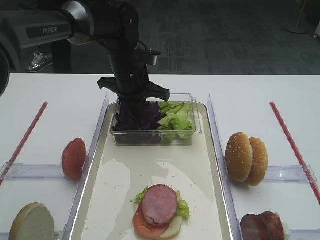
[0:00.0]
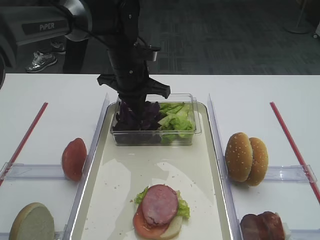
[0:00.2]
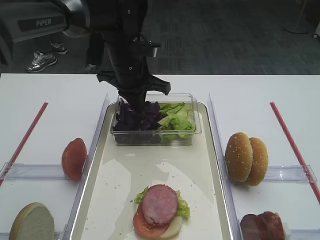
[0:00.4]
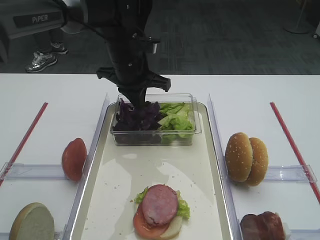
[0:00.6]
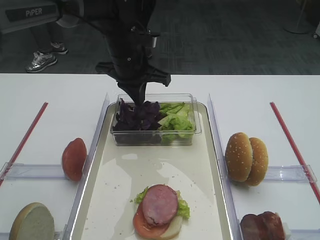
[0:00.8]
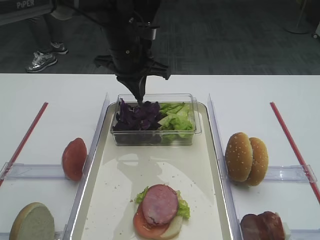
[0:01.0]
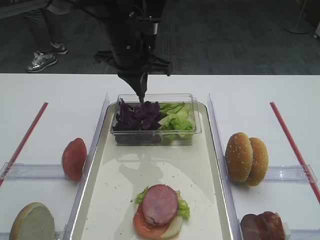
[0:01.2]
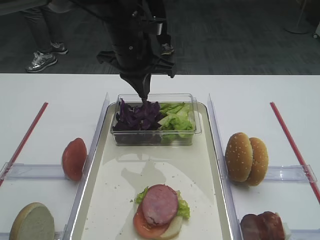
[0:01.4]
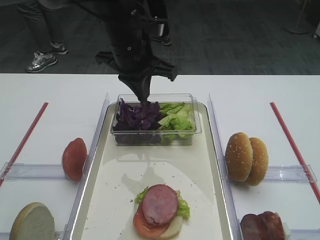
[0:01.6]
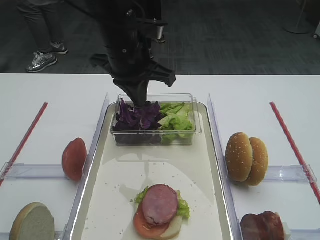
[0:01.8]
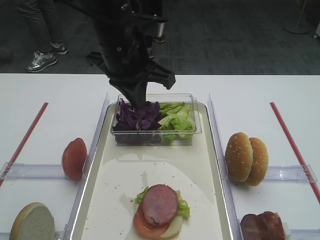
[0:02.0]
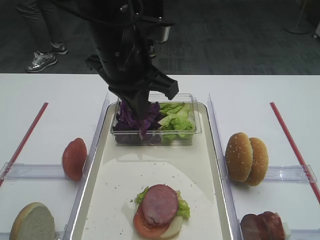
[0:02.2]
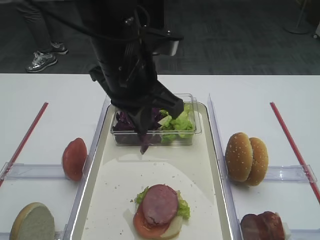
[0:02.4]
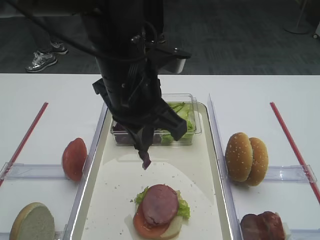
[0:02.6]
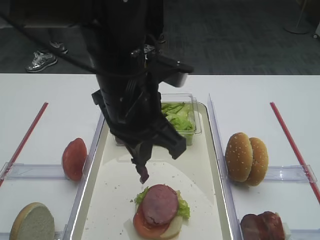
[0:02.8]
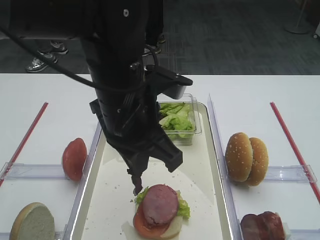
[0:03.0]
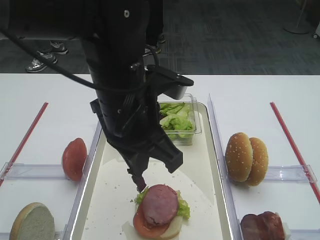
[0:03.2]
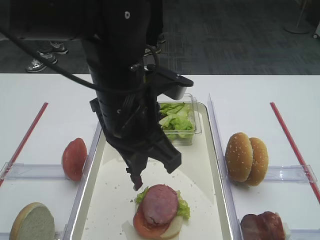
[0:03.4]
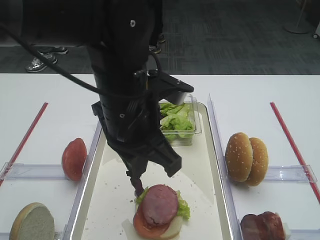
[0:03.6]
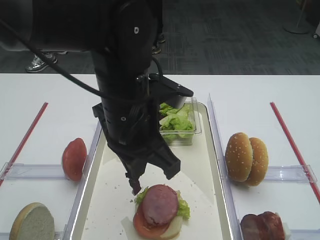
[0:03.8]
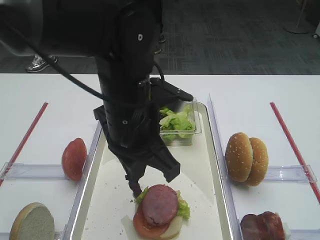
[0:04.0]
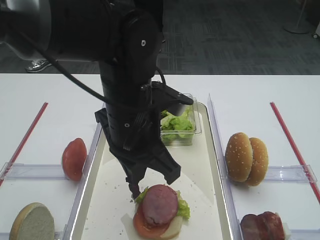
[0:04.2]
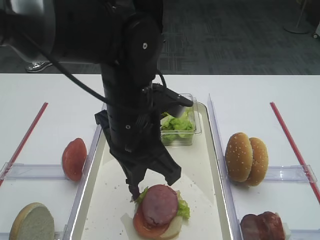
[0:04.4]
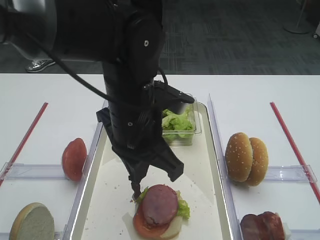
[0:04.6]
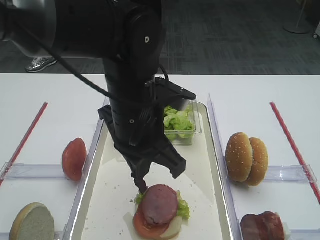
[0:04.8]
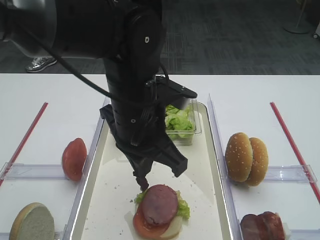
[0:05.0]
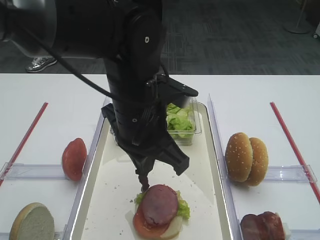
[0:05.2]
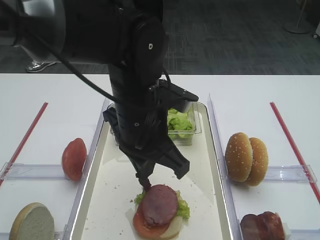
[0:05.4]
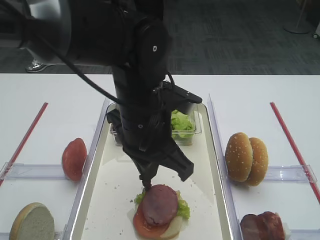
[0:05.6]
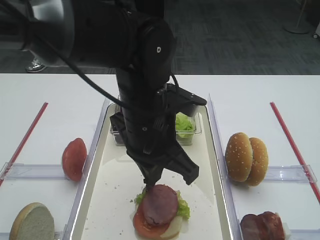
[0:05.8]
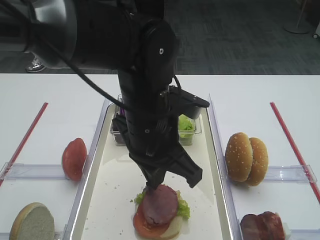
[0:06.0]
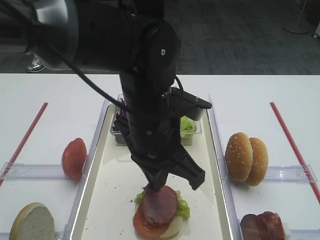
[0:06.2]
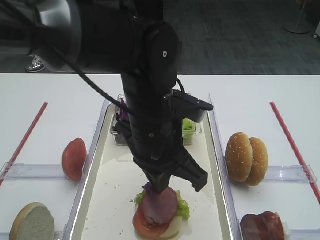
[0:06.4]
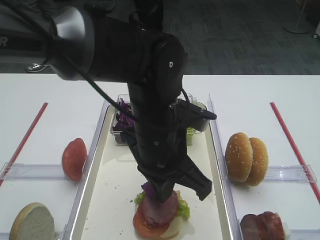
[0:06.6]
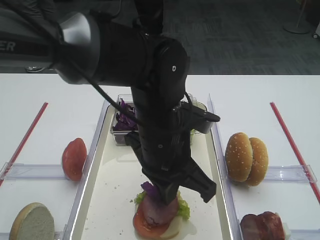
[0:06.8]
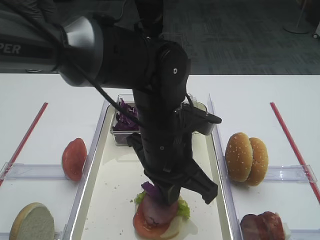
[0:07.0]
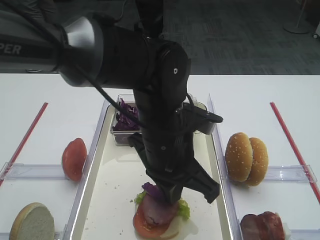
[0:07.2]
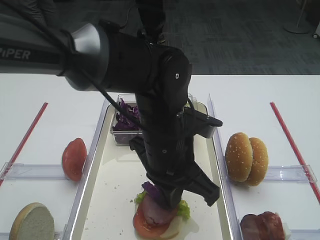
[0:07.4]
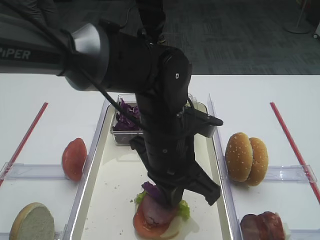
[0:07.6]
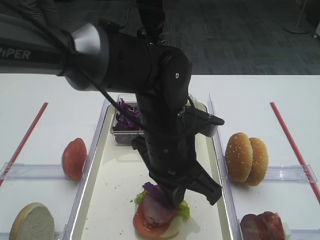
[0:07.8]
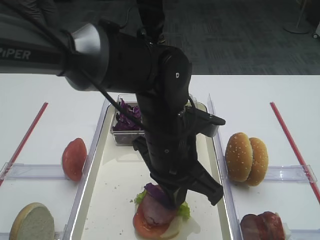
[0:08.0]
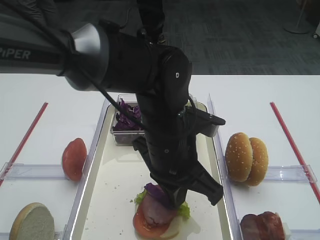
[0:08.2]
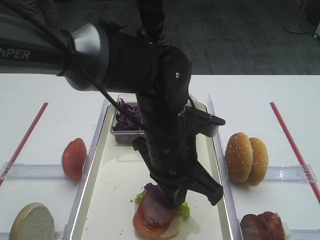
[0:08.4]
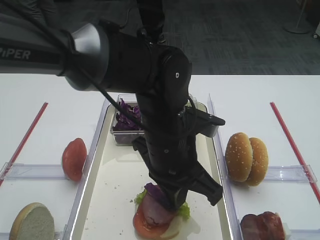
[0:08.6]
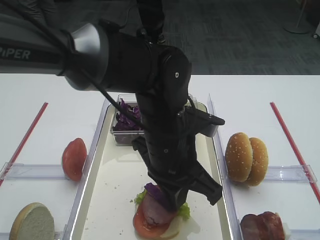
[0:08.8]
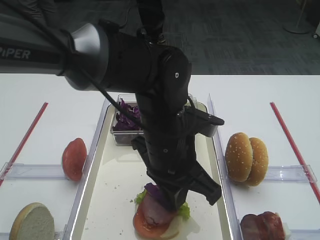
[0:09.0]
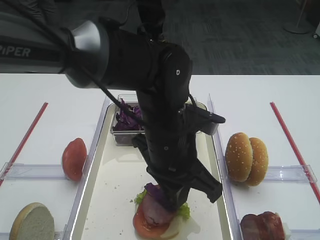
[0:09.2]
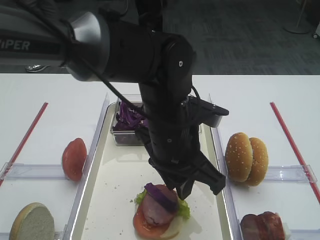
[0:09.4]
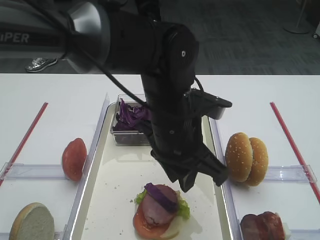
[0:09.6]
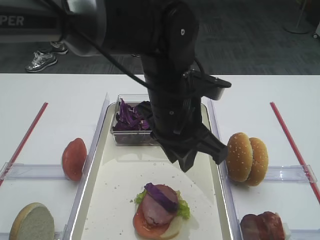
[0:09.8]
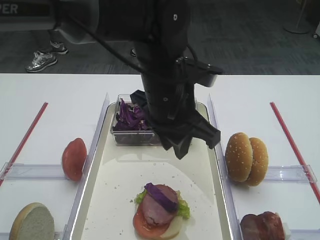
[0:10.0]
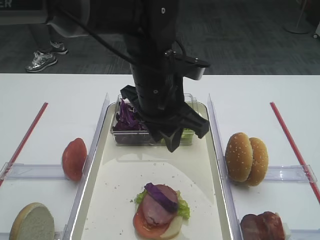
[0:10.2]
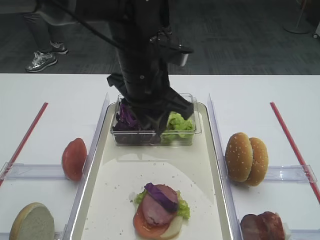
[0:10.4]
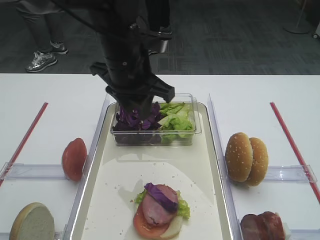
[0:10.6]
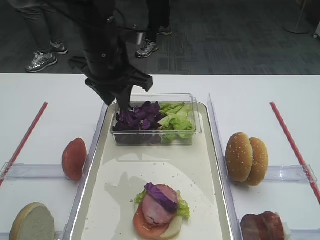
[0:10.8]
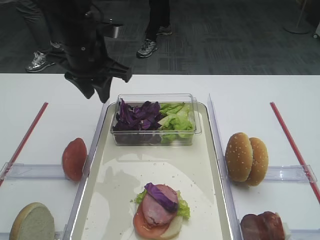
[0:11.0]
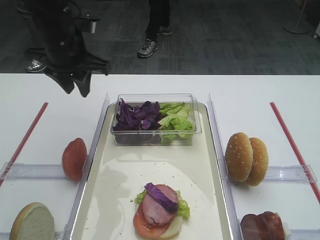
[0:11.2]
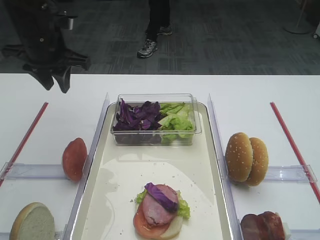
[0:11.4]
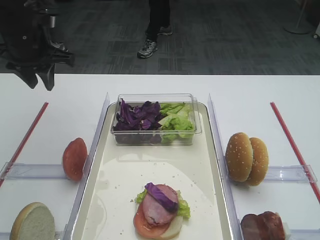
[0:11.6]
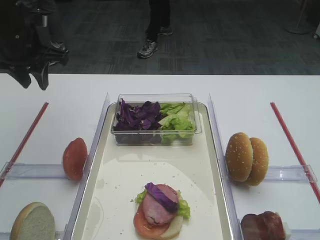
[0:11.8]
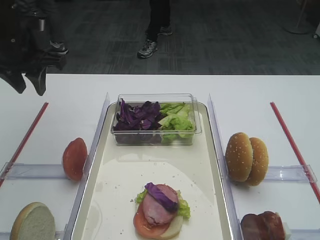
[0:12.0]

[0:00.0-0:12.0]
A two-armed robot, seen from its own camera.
Step, 0:01.4 to 0:09.6: Place the purple cabbage on the cutlet with the left gripper.
0:00.0 to 0:01.6: The left gripper shifts roughly 10 cm upward.
0:01.6 to 0:03.0: The left gripper goes about 15 cm backward.
0:03.0 to 0:06.0: The grippers move only a little.
0:06.0 to 0:07.6: The grippers move only a little.
0:07.6 to 0:09.0: Both grippers stay put.
0:09.0 to 0:10.4: The left gripper moves forward and upward, some 10 cm, and opens.
0:10.4 to 0:12.0: The left gripper heads to the left, covering approximately 25 cm.

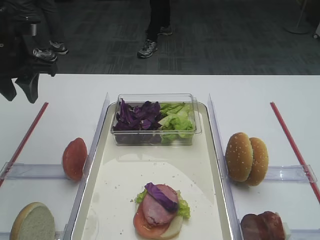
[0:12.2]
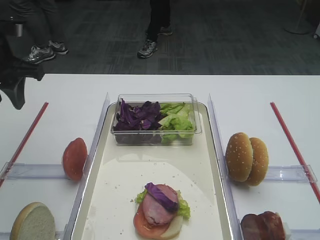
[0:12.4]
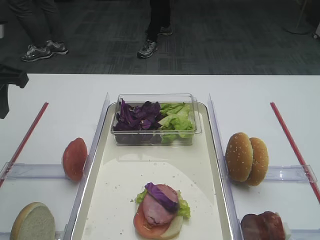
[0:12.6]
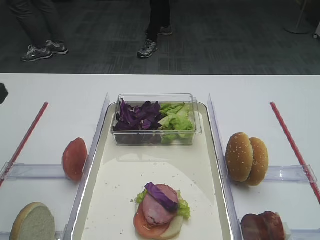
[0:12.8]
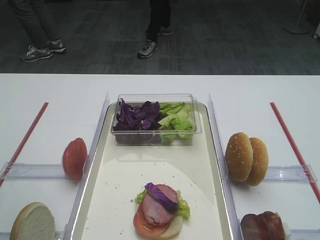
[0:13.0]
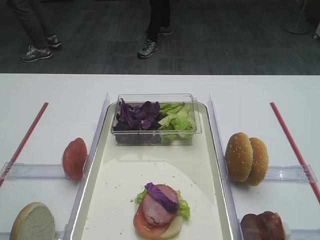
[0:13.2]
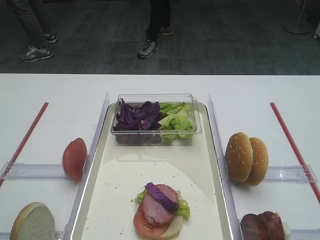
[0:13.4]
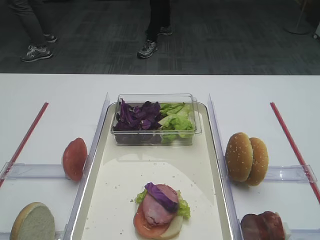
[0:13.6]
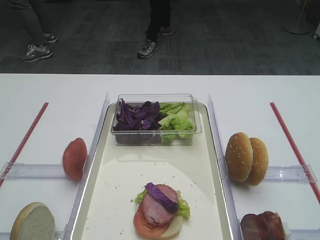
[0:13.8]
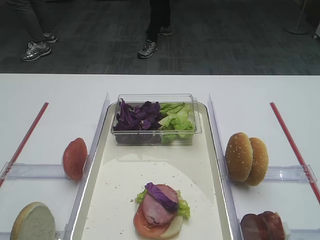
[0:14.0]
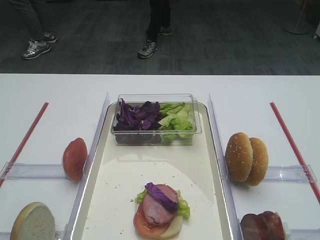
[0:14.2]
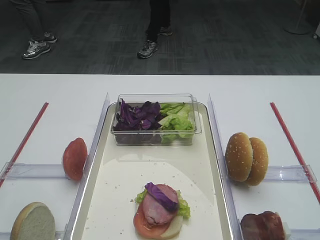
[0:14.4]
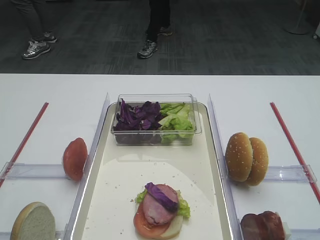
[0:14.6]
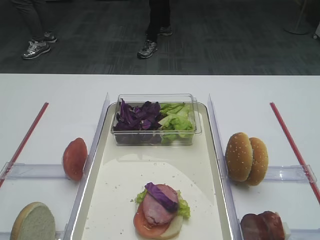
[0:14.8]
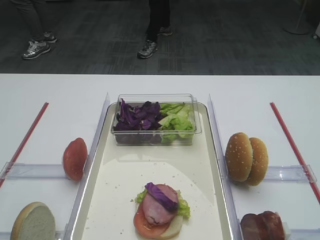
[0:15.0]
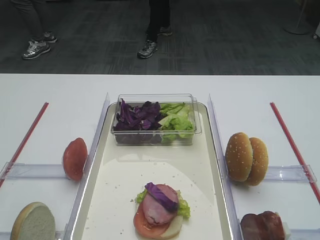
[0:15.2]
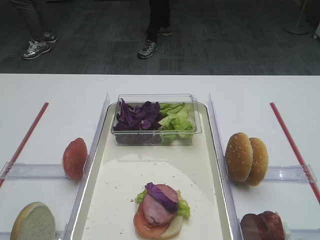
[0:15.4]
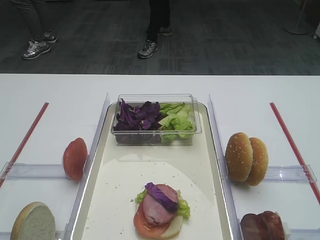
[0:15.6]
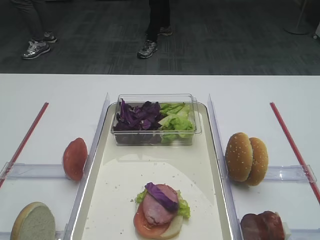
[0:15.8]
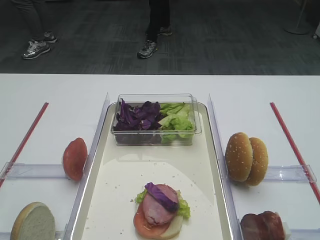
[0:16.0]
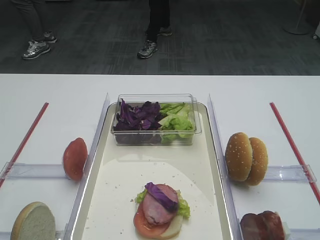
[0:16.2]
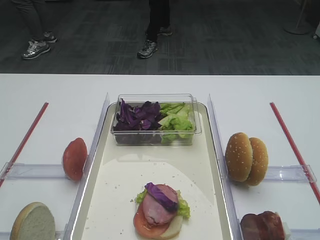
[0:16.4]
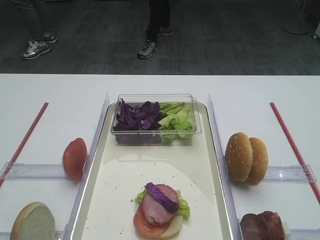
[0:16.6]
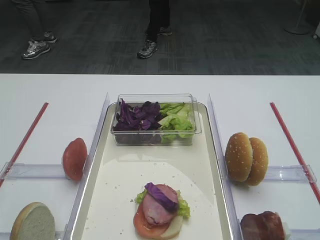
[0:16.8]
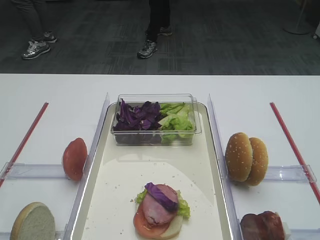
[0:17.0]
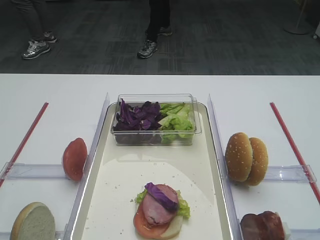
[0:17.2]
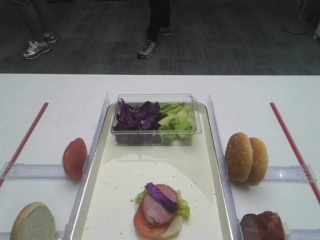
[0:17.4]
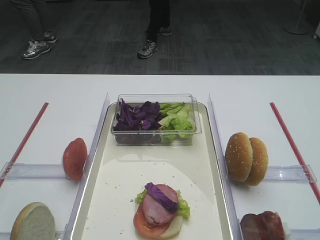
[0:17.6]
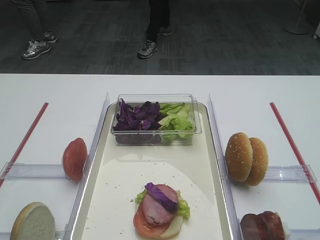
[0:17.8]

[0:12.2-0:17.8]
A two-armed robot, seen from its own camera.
0:12.2 to 0:13.6: The left gripper shifts roughly 30 cm backward.
0:16.4 to 0:17.8: Both grippers stay about where they are.

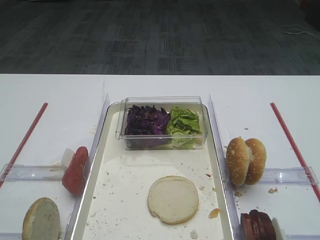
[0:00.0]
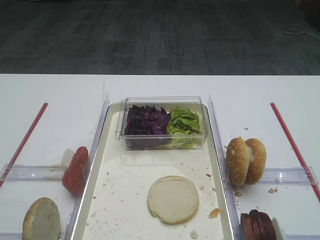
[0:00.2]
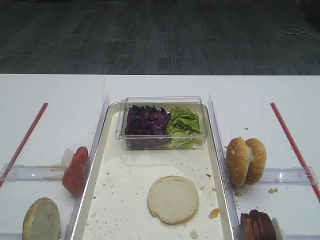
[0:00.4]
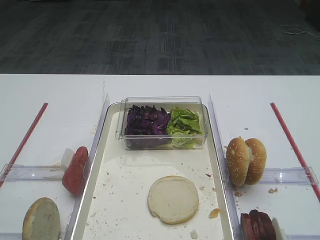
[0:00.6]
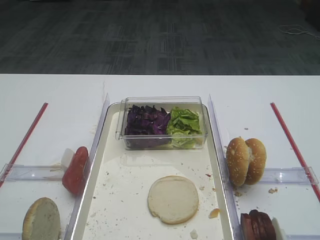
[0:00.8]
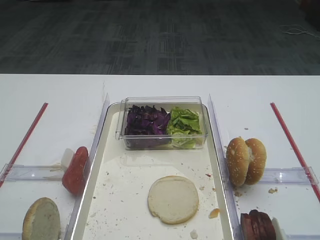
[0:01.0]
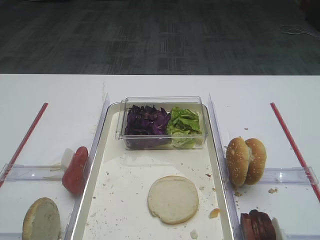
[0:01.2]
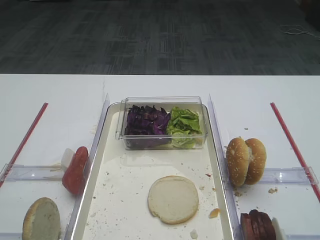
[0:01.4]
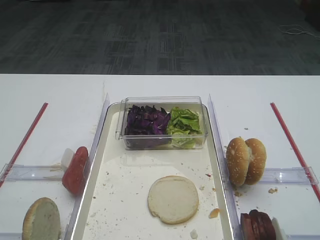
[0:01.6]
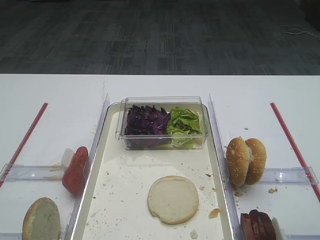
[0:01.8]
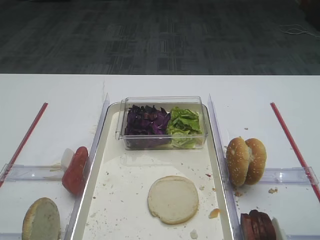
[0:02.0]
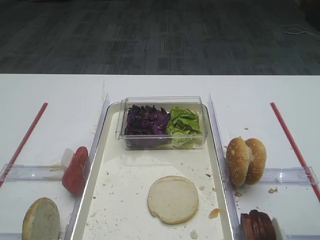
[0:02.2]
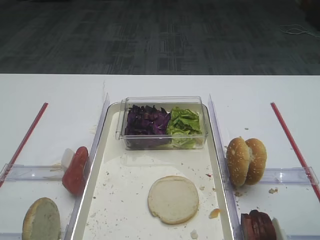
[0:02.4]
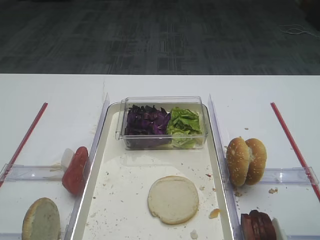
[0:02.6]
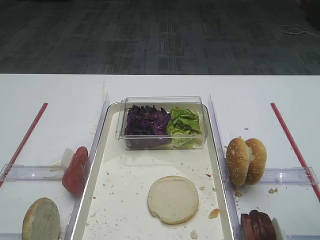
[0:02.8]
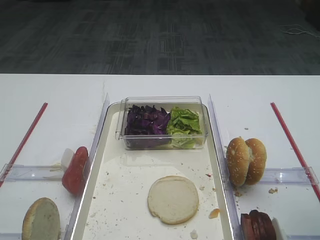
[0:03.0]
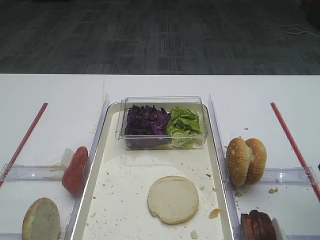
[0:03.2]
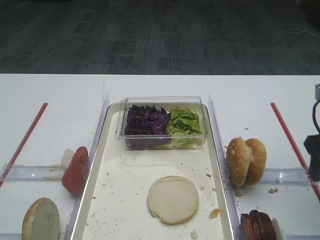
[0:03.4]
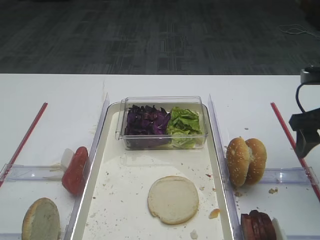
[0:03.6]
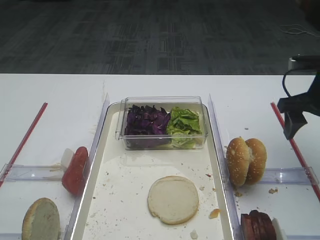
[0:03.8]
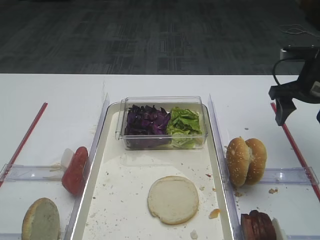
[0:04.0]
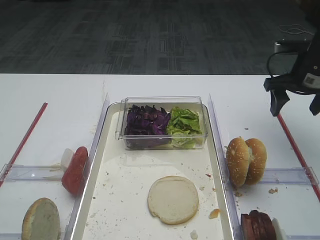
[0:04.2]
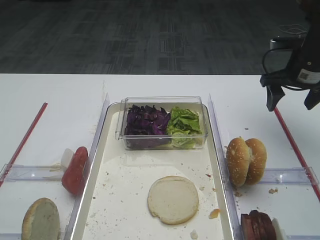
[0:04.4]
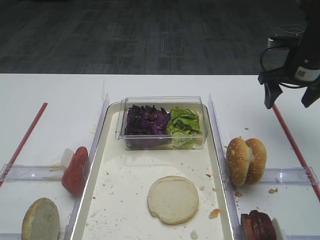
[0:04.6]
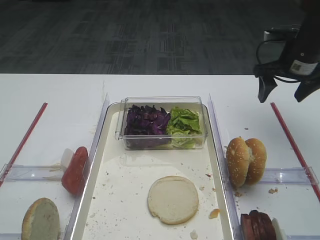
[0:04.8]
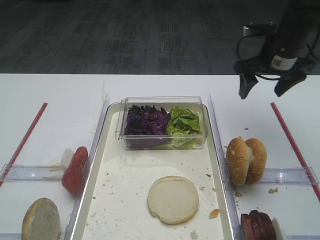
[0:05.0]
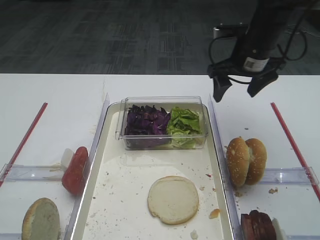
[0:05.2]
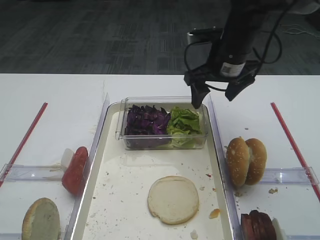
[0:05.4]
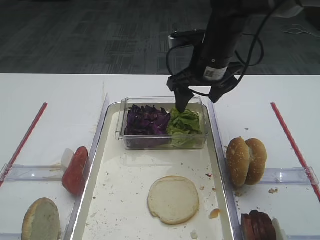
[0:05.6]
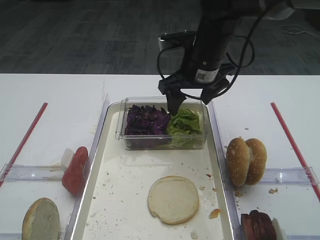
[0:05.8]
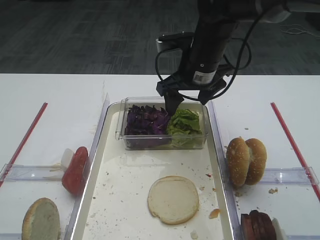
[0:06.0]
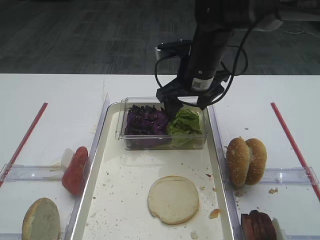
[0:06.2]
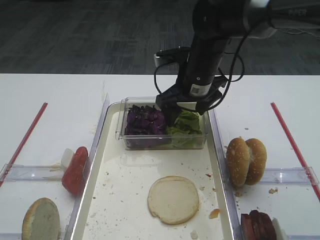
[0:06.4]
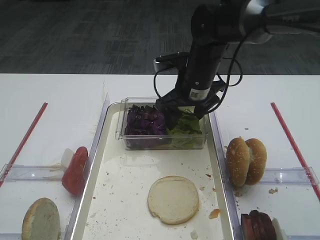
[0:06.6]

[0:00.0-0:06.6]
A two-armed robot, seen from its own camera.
0:01.6 to 0:03.2: The right gripper goes roughly 10 cm forward.
0:03.2 to 0:05.0: The right gripper shifts some 25 cm forward.
0:05.0 to 0:06.6: The right gripper heads to the left, covering about 15 cm.
